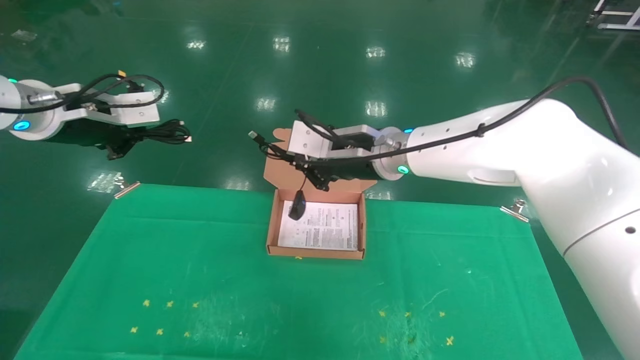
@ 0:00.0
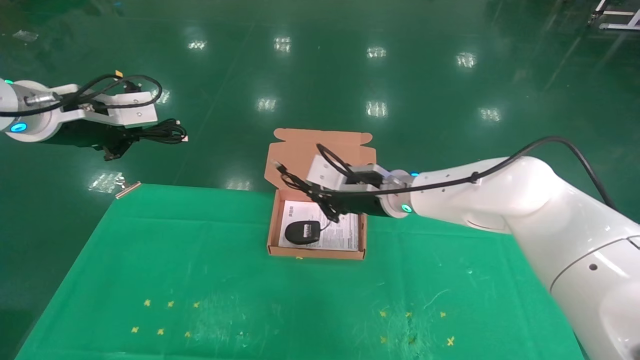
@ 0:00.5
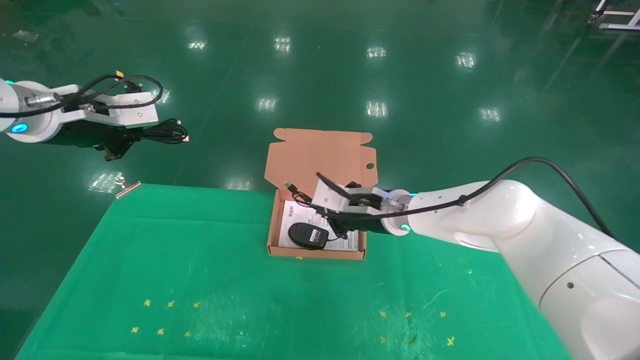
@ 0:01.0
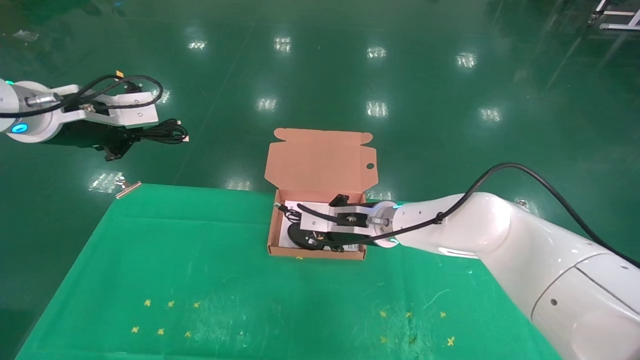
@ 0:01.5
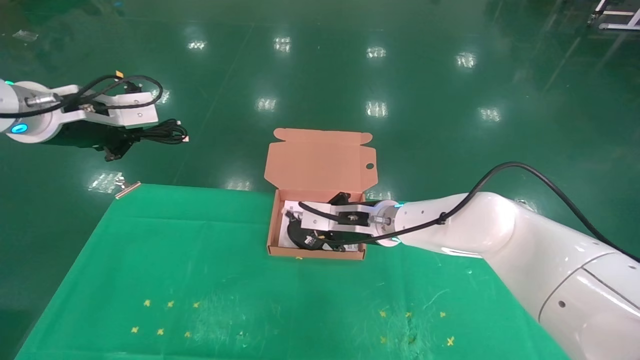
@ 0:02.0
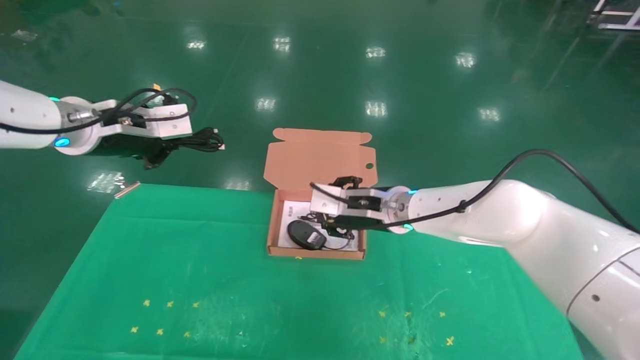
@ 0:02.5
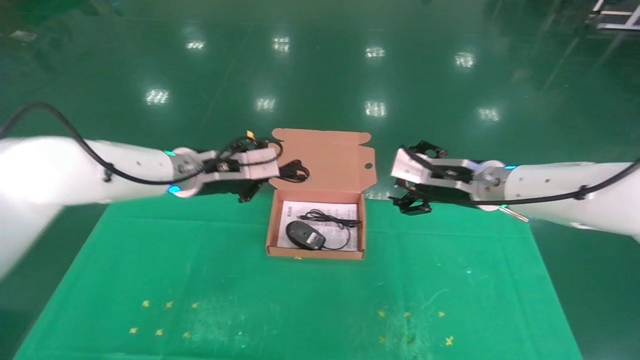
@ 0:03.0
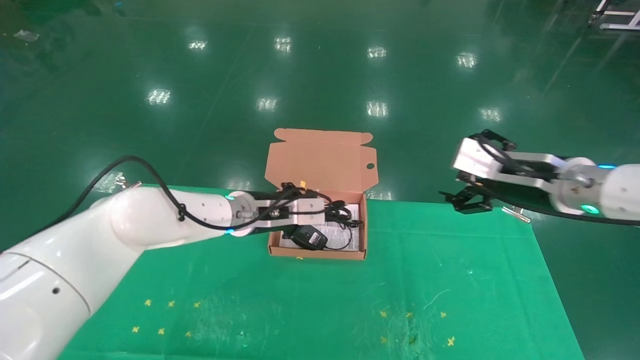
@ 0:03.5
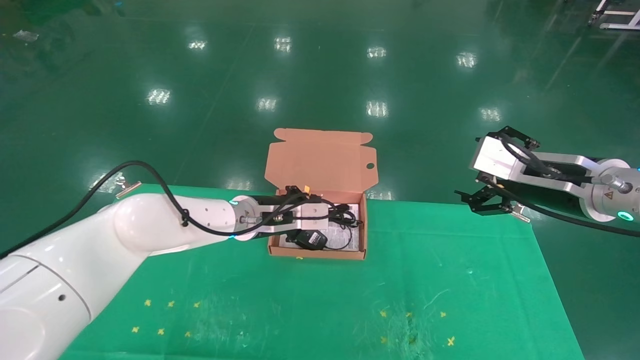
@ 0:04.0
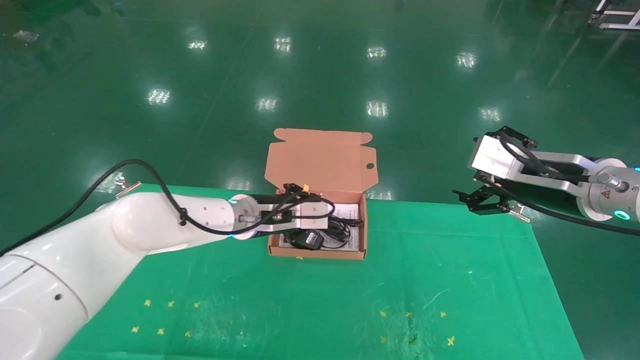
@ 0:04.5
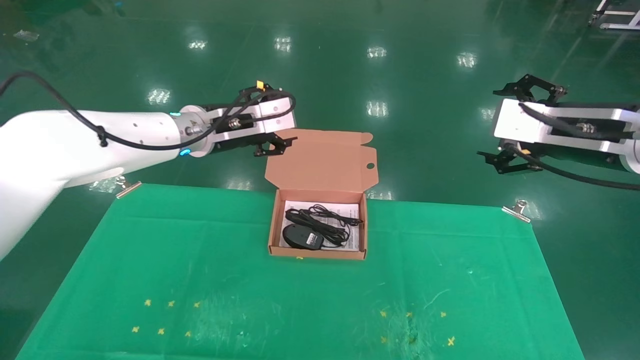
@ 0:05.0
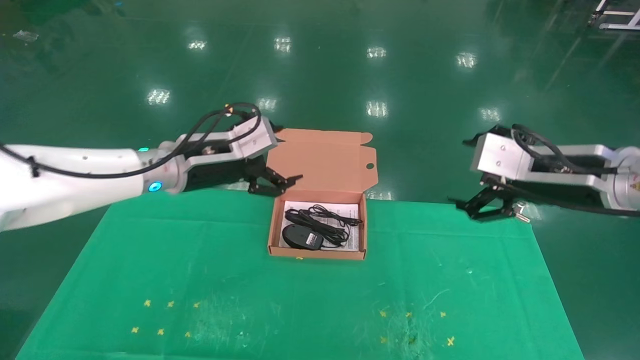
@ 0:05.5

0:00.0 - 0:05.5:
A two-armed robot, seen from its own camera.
Task of the whole recording: grasp data cable left put into box grasp mouse right put into box.
Step, 0:00.0 - 0:04.0: Place the mouse and power cord into the box.
0:00.0 - 0:02.0: The right gripper heads downward, covering approximately 10 cm.
0:02.0 - 0:03.5: The right gripper travels to the right, backward and upward by roughly 25 cm, and opens. Meanwhile the left gripper heads to the right and downward, covering roughly 30 cm.
0:03.5 - 0:05.5: The left gripper travels upward, to the left and backward by approximately 15 cm, and opens its fingers. Meanwhile the right gripper heads backward, covering approximately 5 cm.

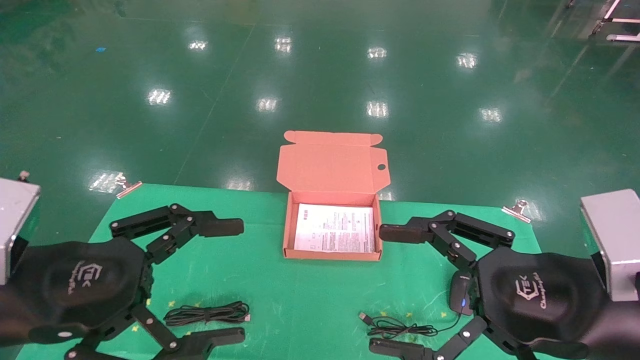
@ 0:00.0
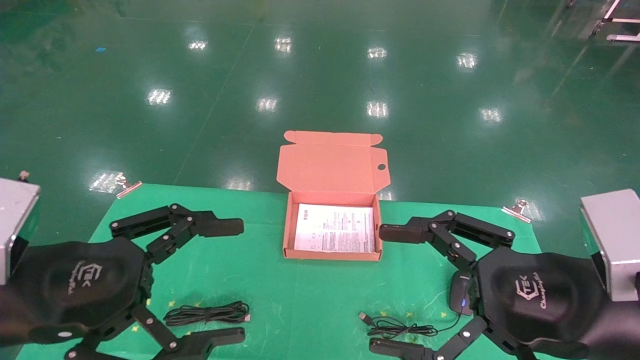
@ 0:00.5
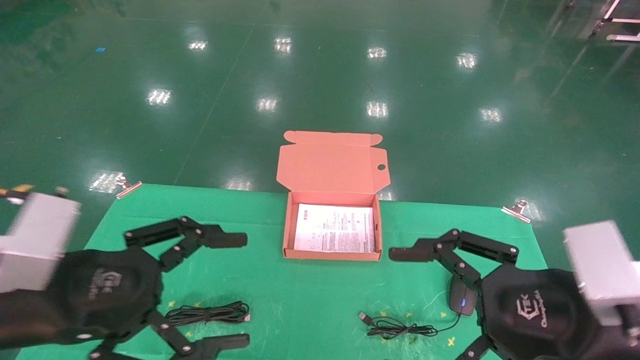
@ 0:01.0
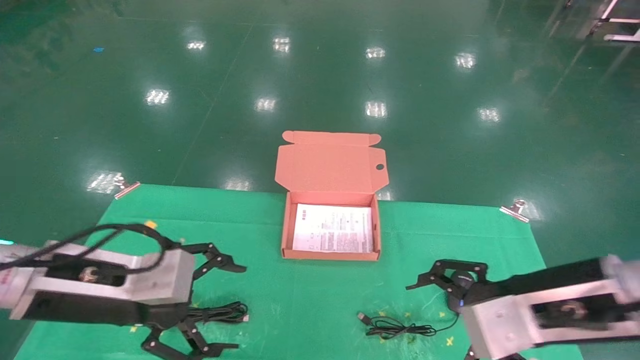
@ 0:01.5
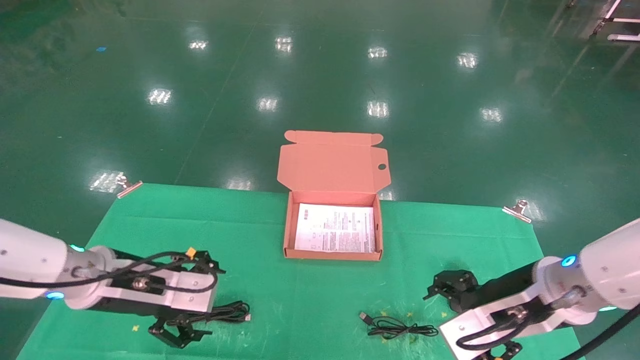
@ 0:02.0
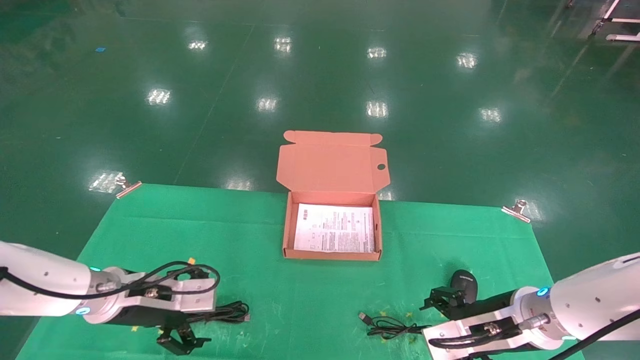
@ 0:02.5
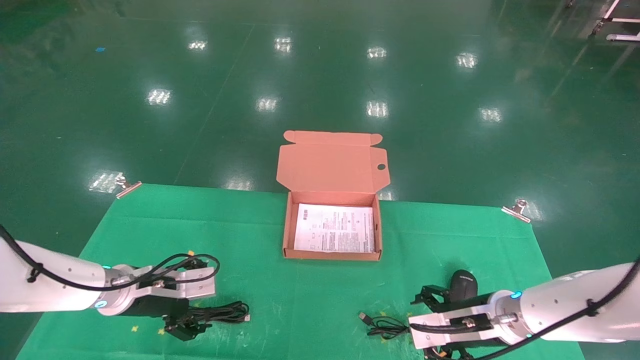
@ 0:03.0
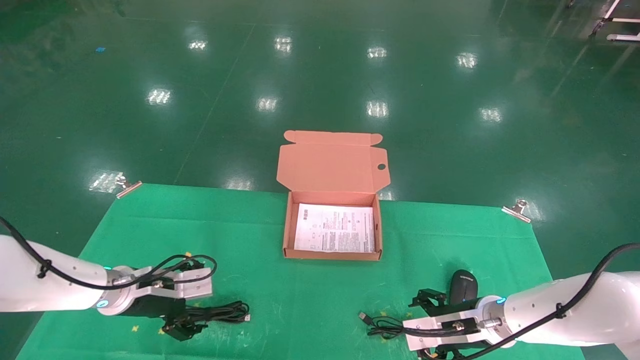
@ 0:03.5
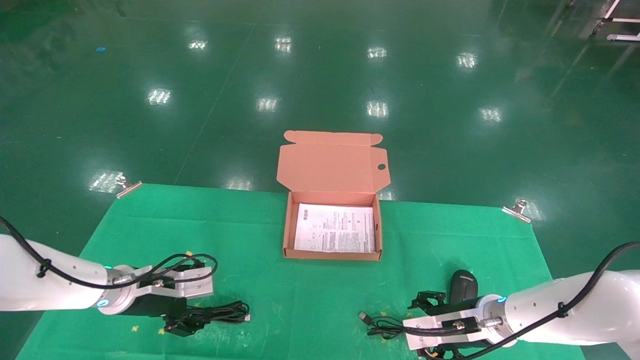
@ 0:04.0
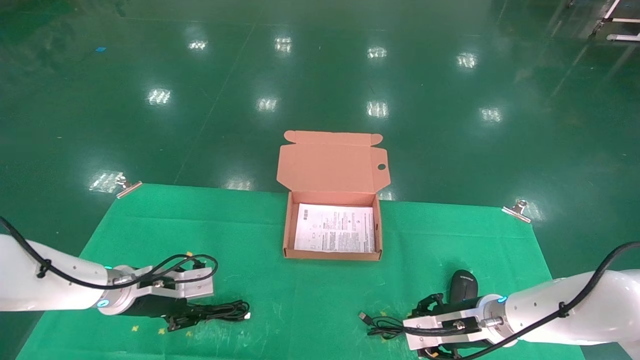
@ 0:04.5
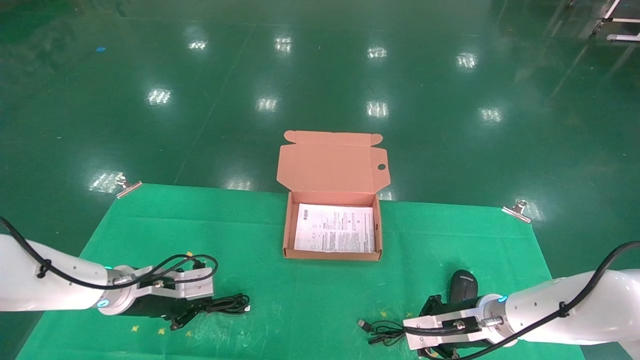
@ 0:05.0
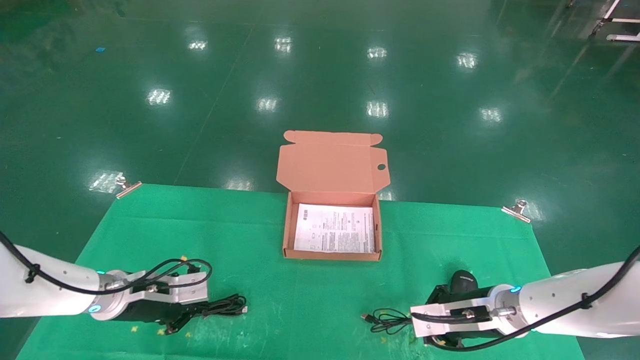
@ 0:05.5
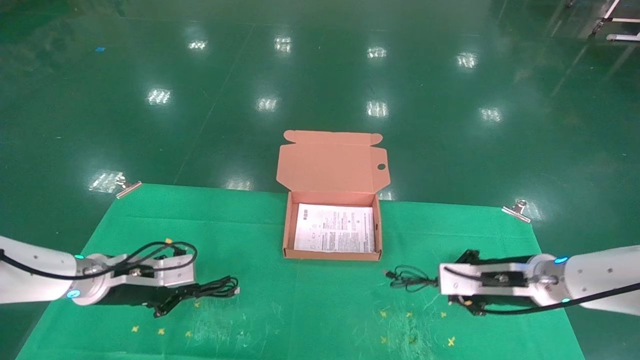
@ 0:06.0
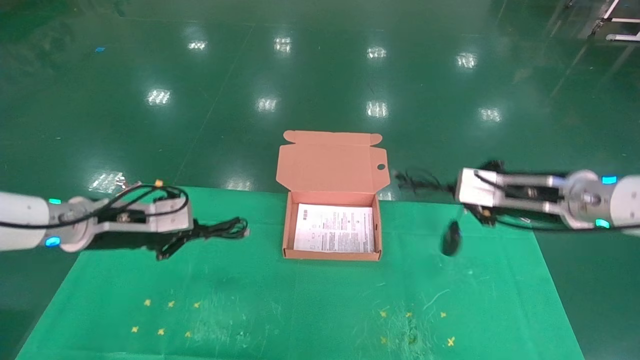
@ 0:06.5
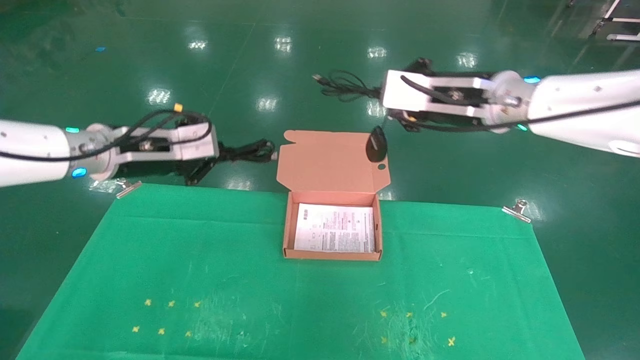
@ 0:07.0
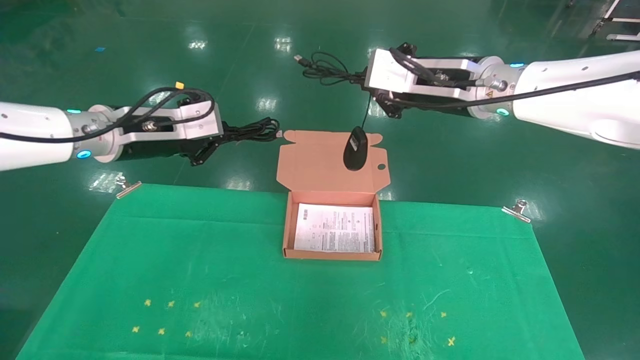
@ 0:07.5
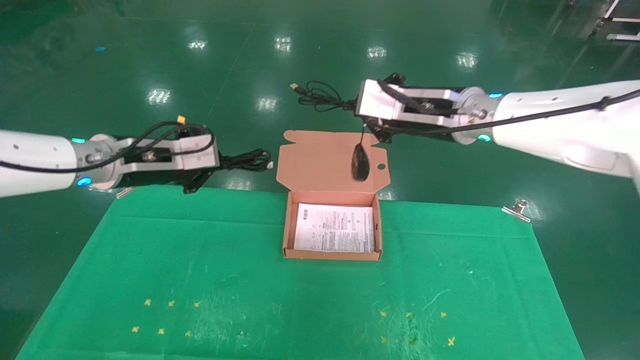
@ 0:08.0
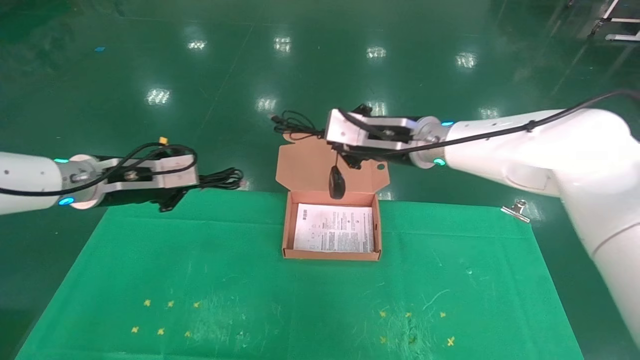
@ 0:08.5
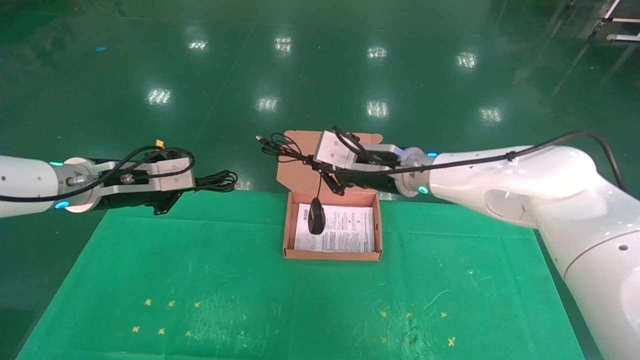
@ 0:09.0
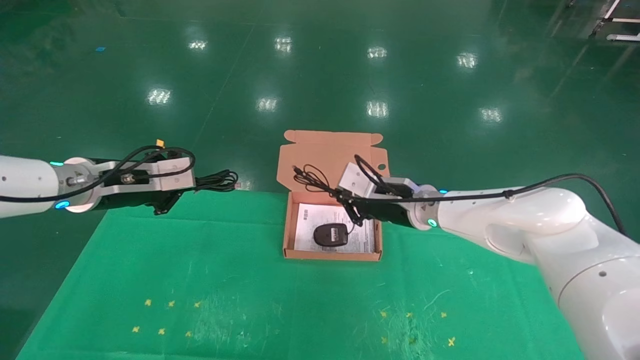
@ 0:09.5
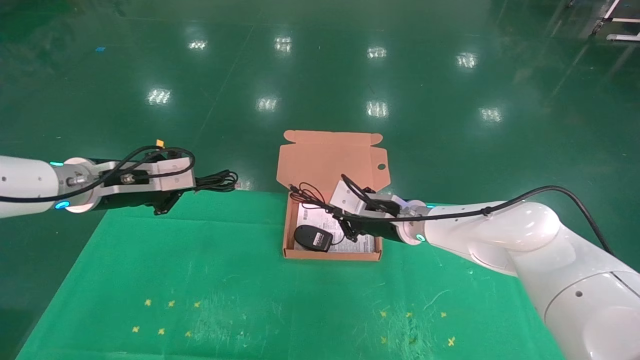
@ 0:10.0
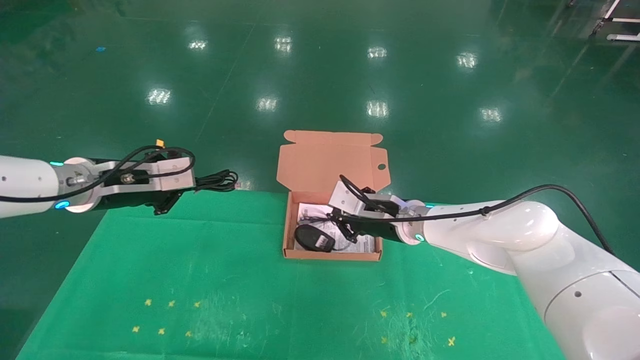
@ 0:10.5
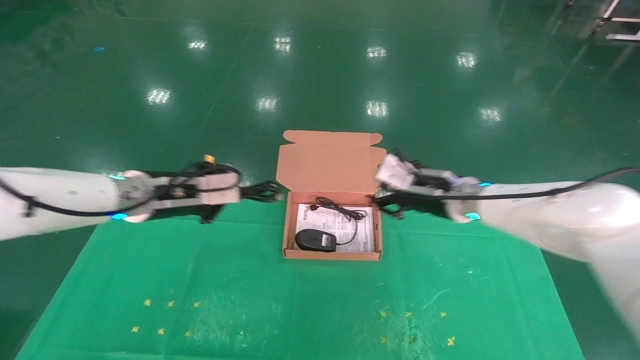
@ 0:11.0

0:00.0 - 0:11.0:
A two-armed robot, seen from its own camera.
Task of the whole recording: grasp data cable left put into box grasp mouse right put into box.
Step, 0:01.5 - 0:05.0: Grab and pick up both the mouse and power cord from the accessory packaging area at the same time.
0:00.0 - 0:02.0: The grippers both shift forward and downward by roughly 15 cm.
0:02.0 - 0:03.5: The left gripper travels forward and downward by about 10 cm. Meanwhile the right gripper is displaced downward and forward by about 15 cm.
0:03.5 - 0:05.5: The left gripper closes up; the right gripper closes up.
0:05.5 - 0:07.5: The grippers both shift upward by about 25 cm.
0:07.5 - 0:09.0: The left gripper goes roughly 5 cm downward. Meanwhile the right gripper travels downward and to the left by roughly 10 cm.
0:09.0 - 0:11.0: The left gripper shifts some 10 cm to the right. Meanwhile the right gripper travels to the right and downward by some 10 cm, and opens.

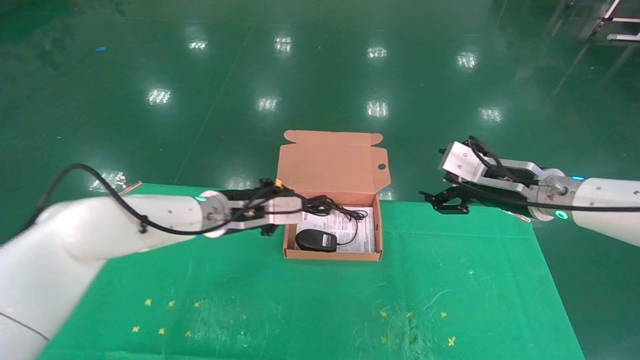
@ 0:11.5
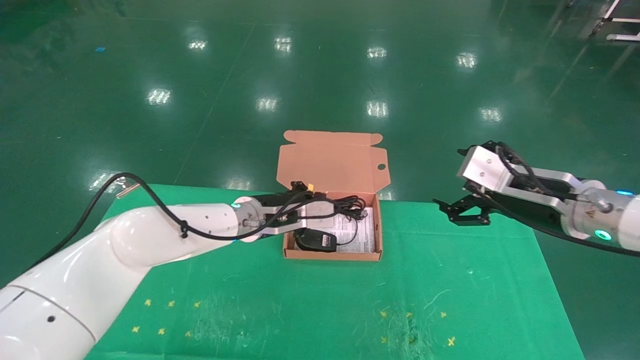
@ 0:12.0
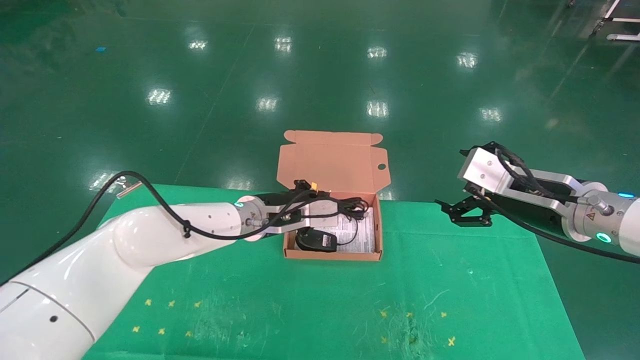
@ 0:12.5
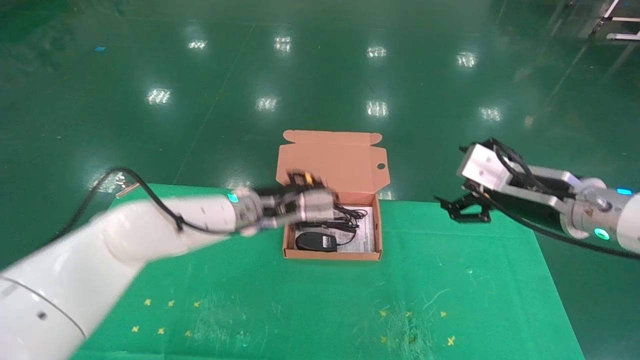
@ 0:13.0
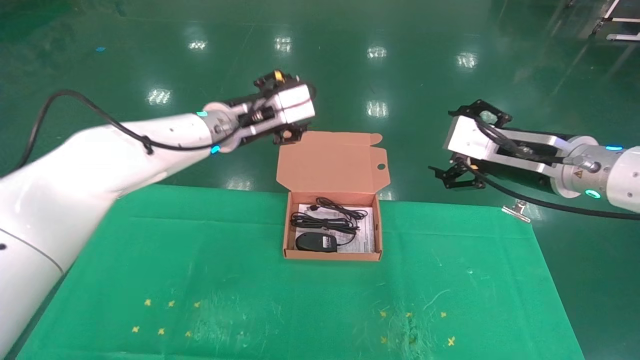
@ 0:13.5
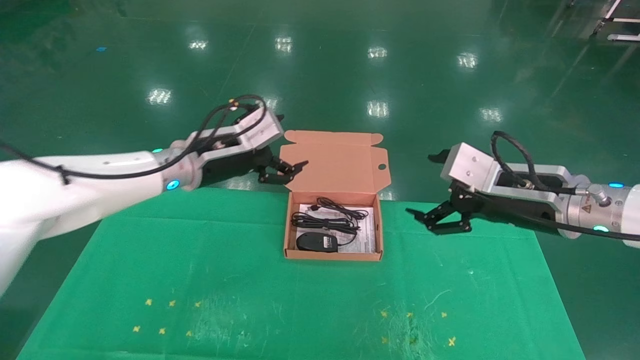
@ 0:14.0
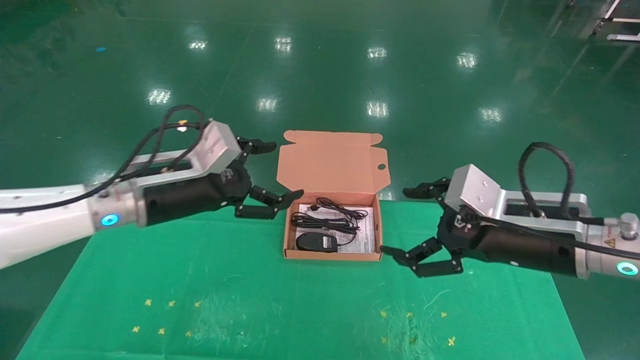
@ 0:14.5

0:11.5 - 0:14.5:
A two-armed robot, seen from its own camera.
Task of the whole recording: grasp data cable left put into box grasp mouse right put into box.
0:11.5 - 0:13.0: The right gripper is displaced backward by roughly 5 cm; the left gripper moves some 5 cm.
0:13.0 - 0:14.5: The left gripper travels to the left and backward by roughly 15 cm, and opens its fingers, while the right gripper is displaced backward by roughly 5 cm.
